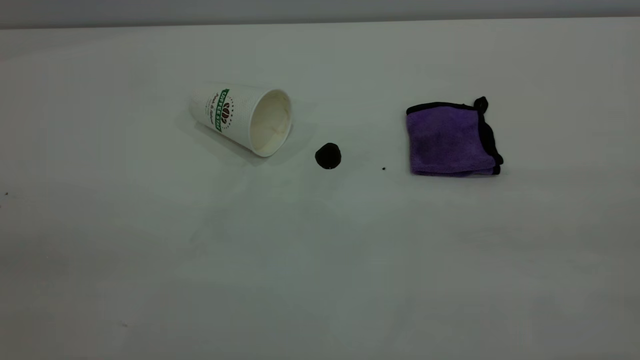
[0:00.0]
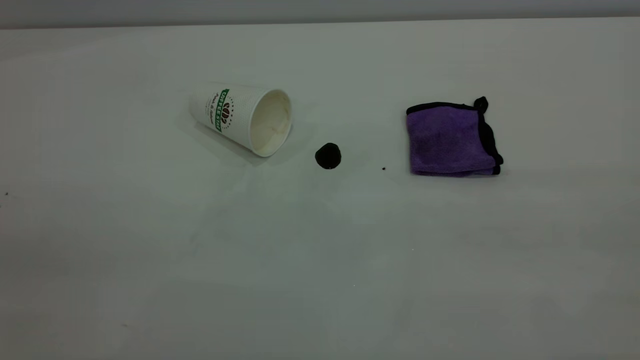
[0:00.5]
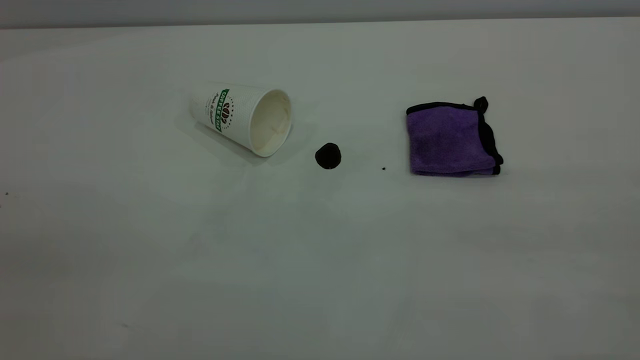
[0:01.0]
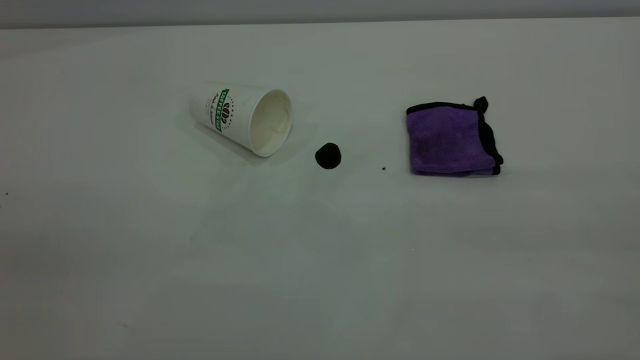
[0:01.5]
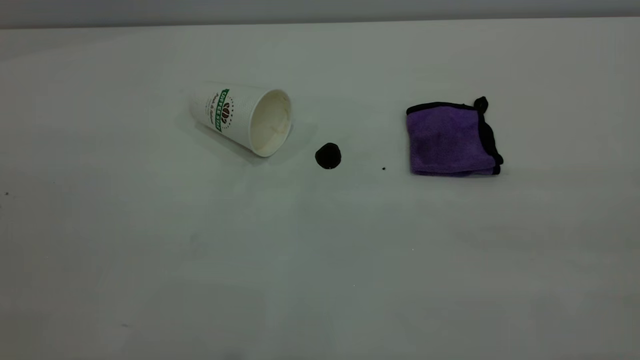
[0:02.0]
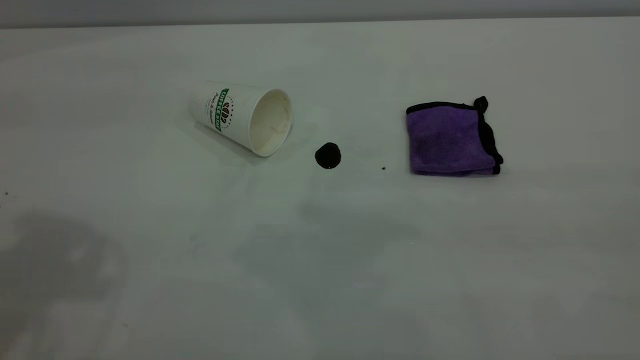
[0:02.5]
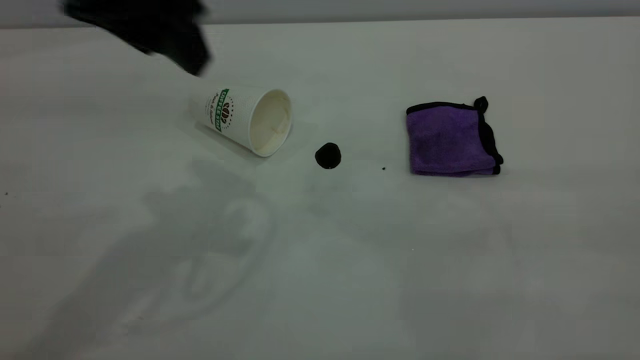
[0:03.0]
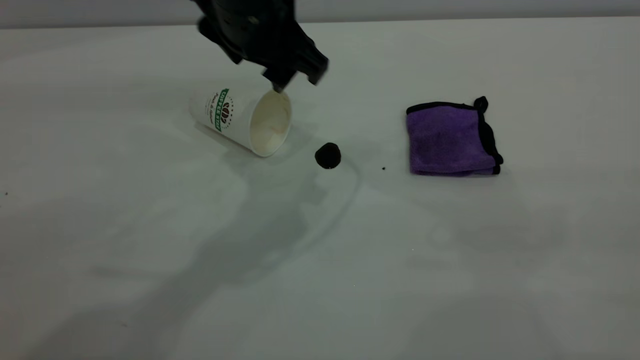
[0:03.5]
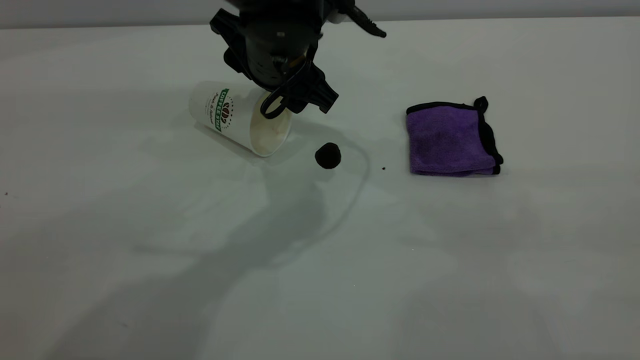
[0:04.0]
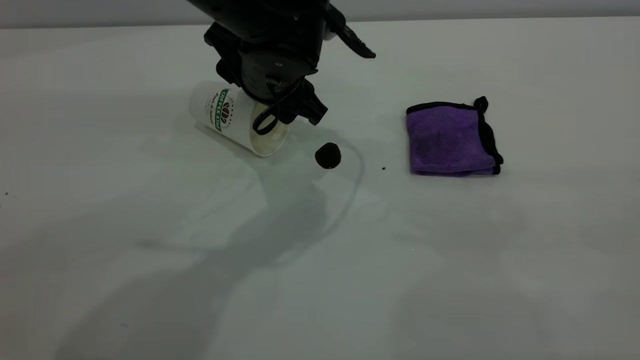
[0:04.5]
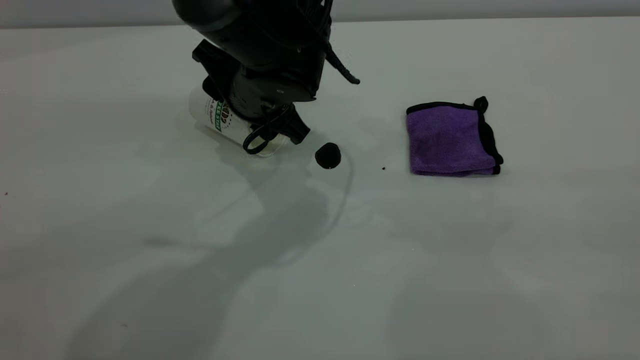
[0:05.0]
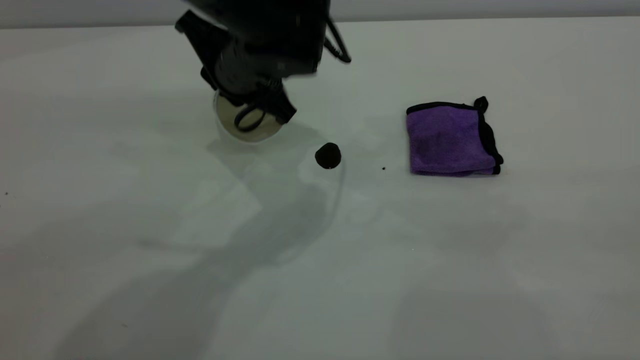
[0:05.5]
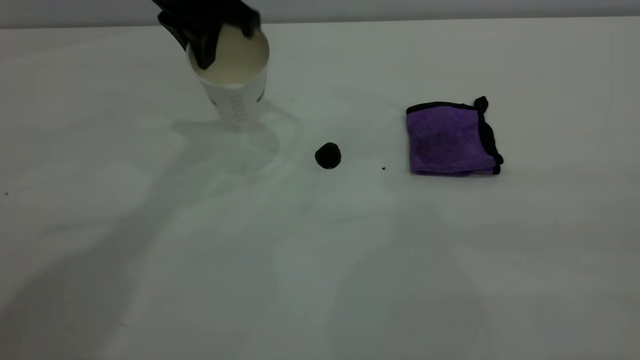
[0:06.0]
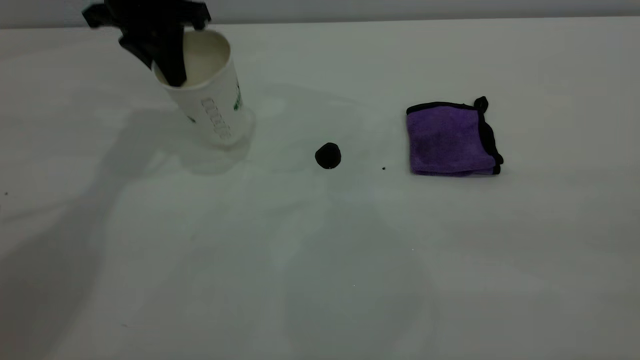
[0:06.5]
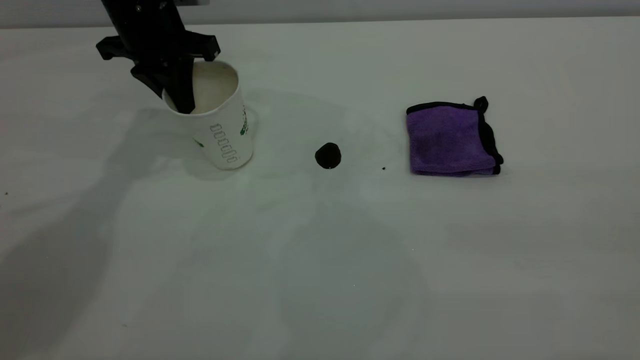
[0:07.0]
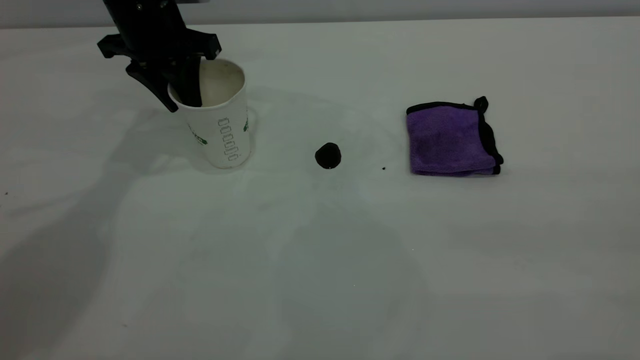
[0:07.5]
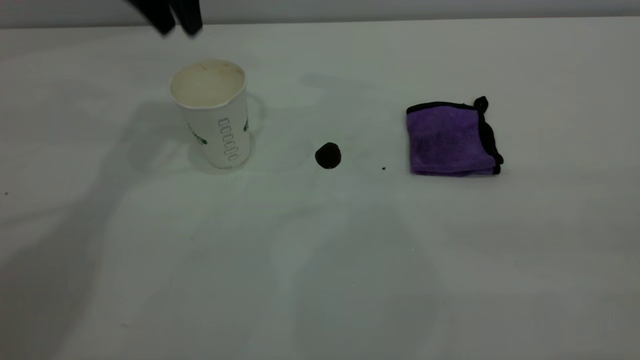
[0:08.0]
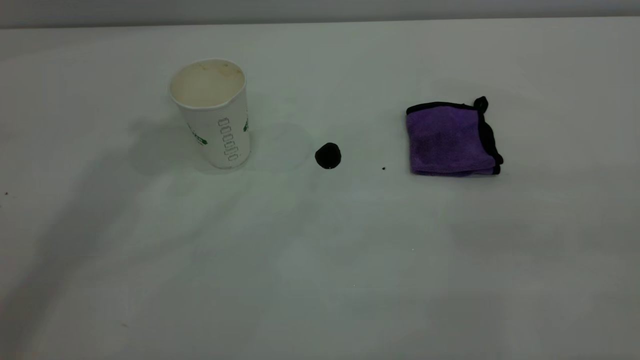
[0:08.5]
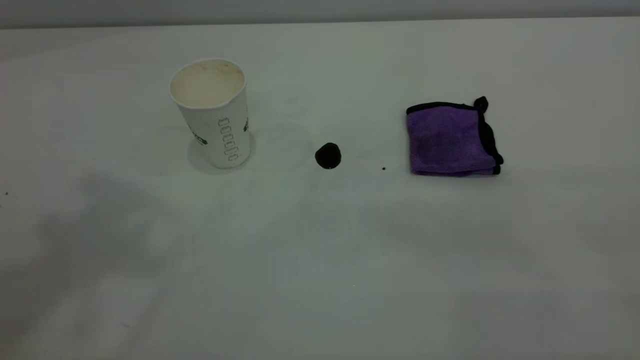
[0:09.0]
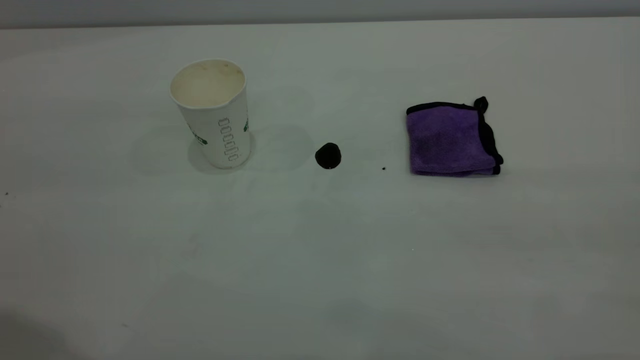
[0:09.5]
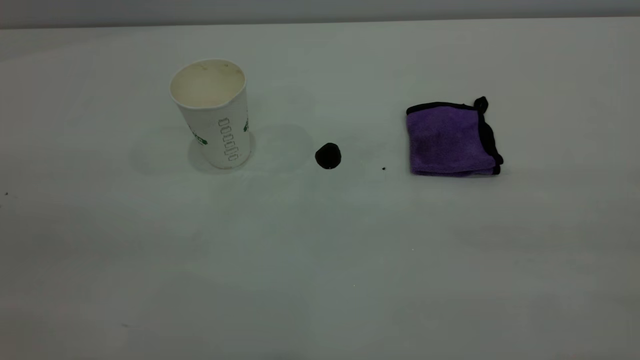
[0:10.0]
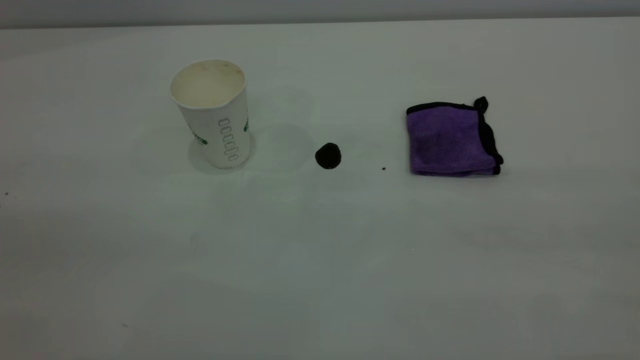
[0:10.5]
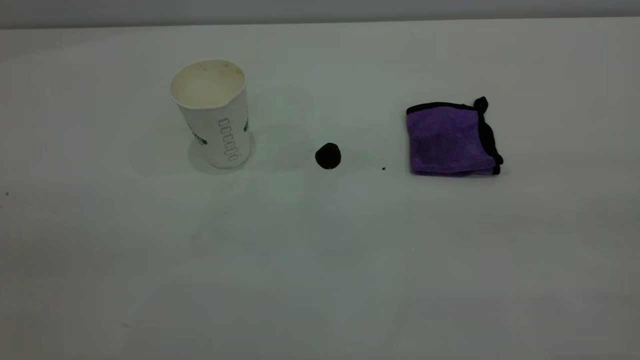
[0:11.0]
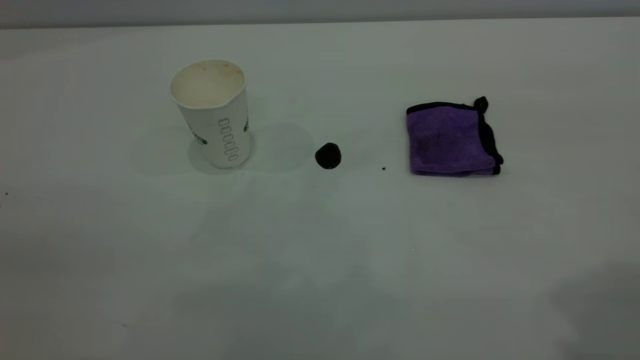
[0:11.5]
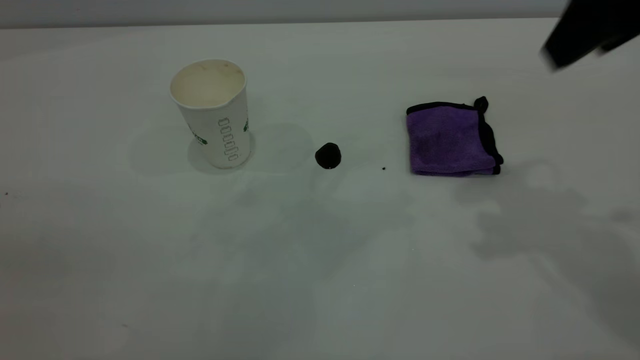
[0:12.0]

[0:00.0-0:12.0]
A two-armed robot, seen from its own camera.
Task of the whole recording: the left gripper pick up the fallen cup and place it upright, the right gripper grasp the purple rag and wipe the coffee stain on the table, the right gripper put the purple rag back in its original position.
Step, 0:00.0 to 0:07.5: Stand the paper cup upright.
0:02.0 to 0:04.0: The left gripper is displaced forward, to the right and downward by roughly 50 cm.
0:04.0 to 0:06.0: The left gripper heads to the left, upward and forward, covering some 15 cm, and closes up.
0:06.0 to 0:08.0: The left gripper goes roughly 5 cm upward, and opens its fingers.
0:08.0 to 0:10.0: The left gripper travels backward by approximately 40 cm.
0:10.0 to 0:12.0: The right gripper goes roughly 30 cm forward, and opens its fingers.

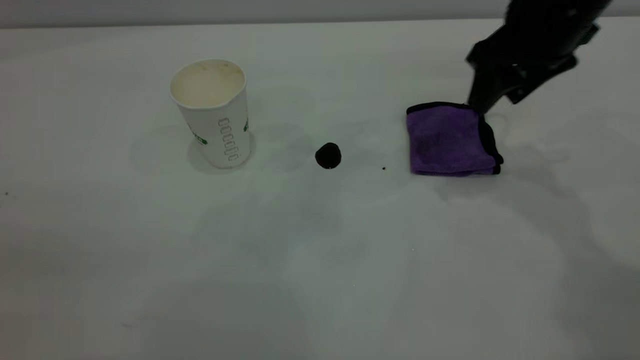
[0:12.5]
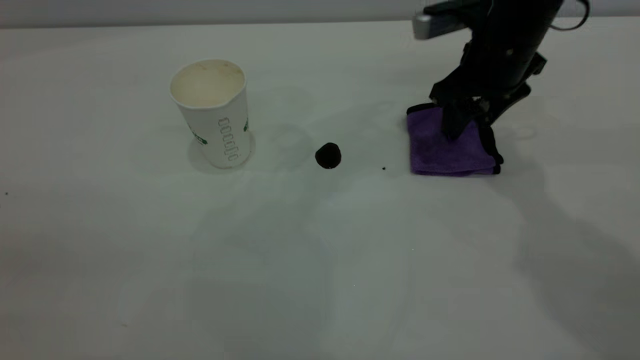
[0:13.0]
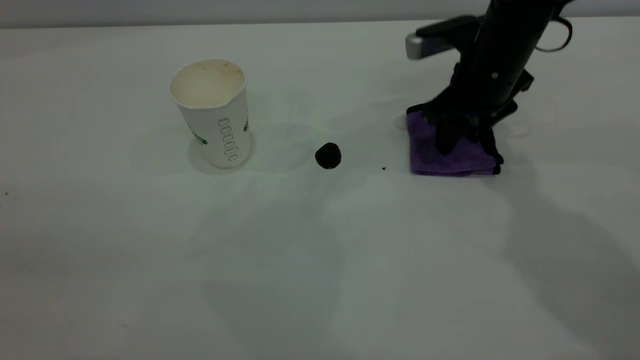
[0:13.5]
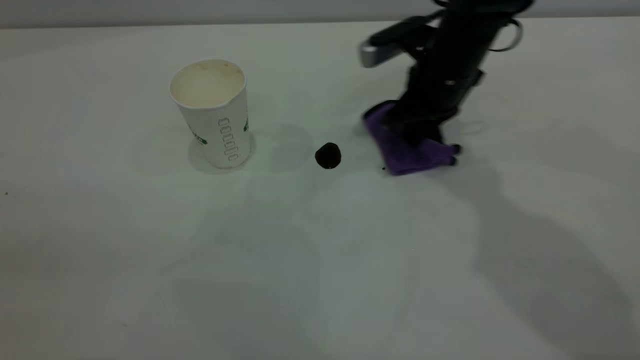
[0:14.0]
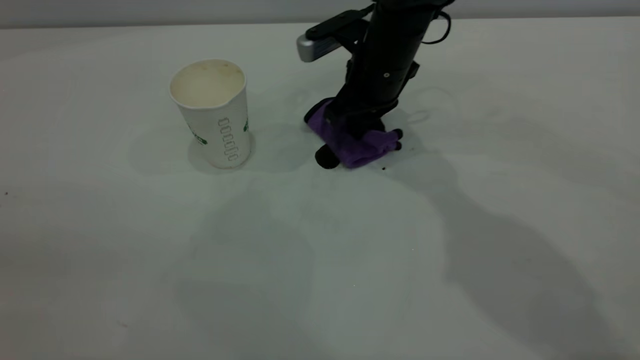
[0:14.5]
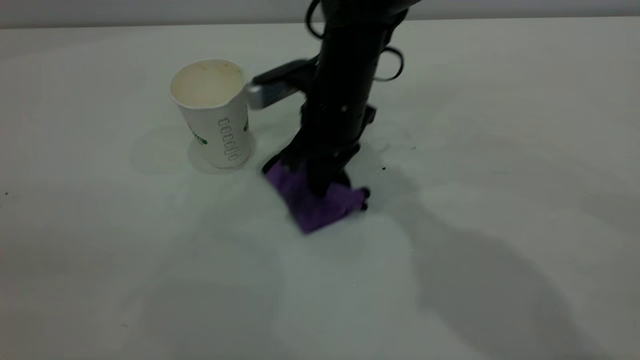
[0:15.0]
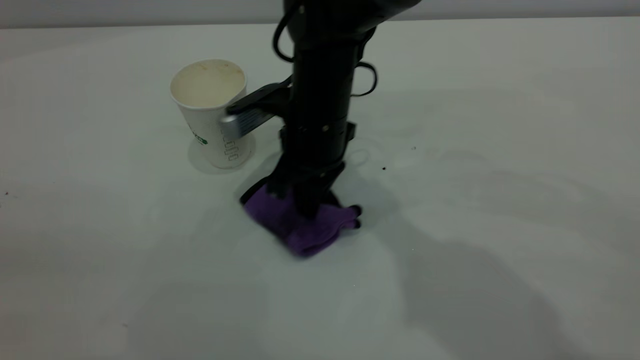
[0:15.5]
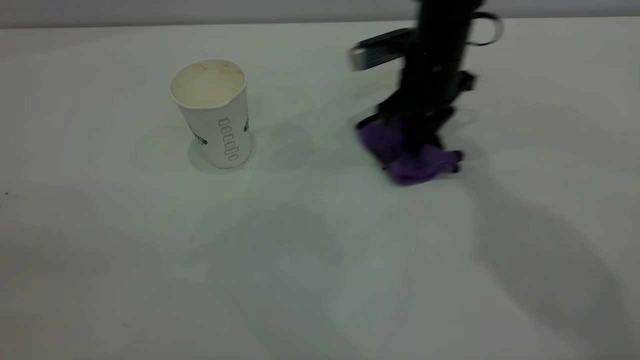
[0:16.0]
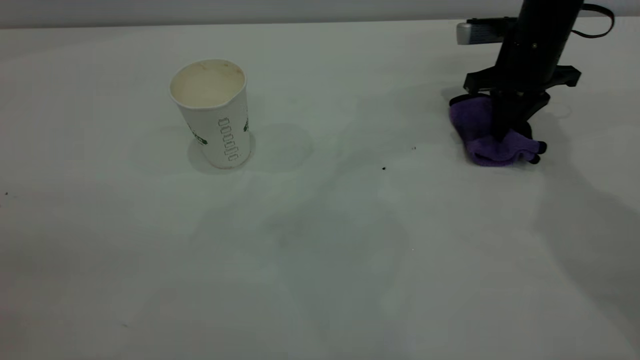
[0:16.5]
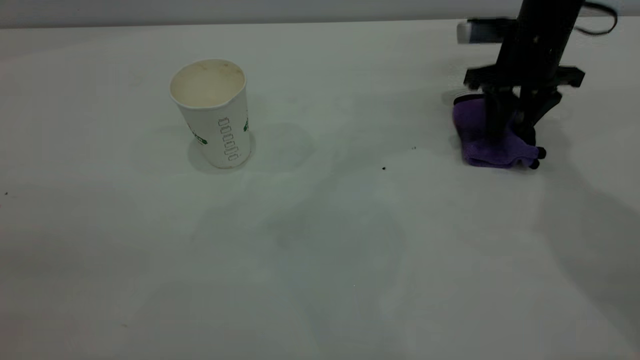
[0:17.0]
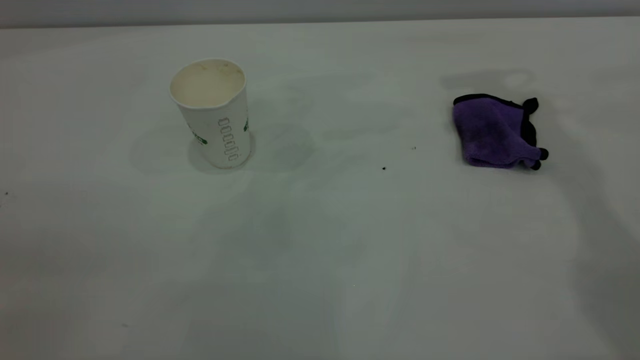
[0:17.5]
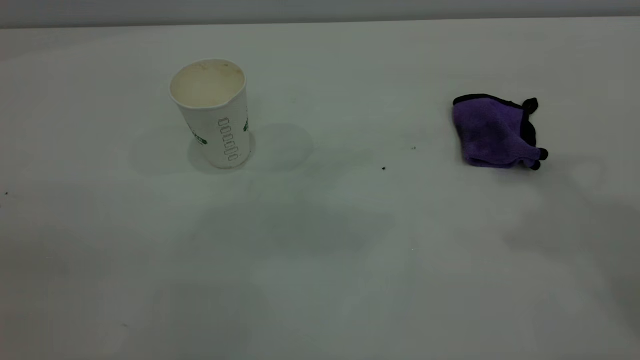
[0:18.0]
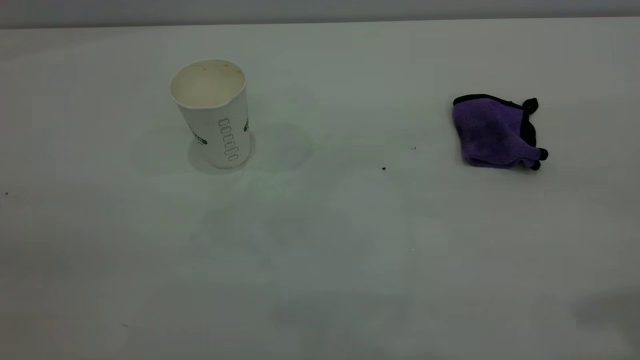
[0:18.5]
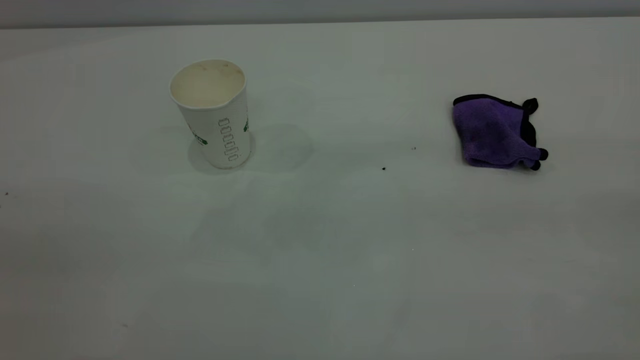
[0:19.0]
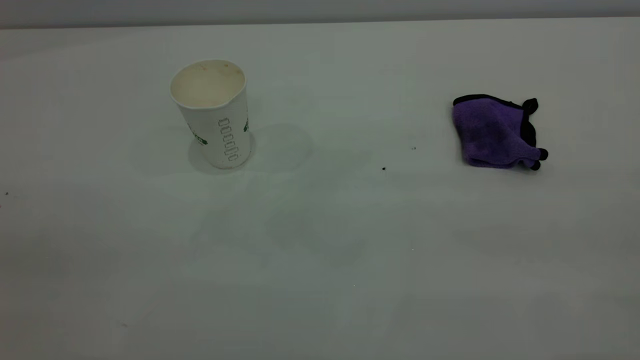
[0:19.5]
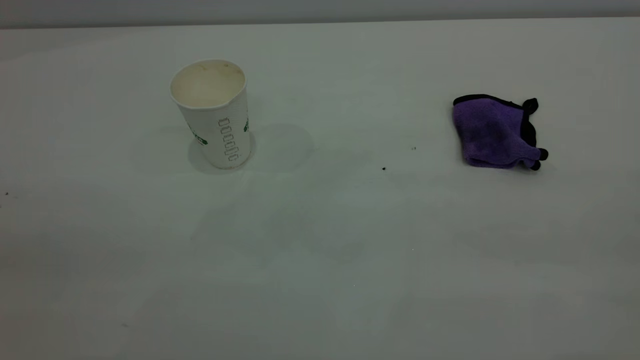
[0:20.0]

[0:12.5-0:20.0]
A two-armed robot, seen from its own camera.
Task of the whole recording: the left gripper pick up the fallen cup and place it upright, the right gripper grasp the purple rag and wipe the coffee stain on the table, the right gripper put the purple rag back in its original position.
Step, 0:12.5 to 0:17.0: Wipe the stains off the table with a rag.
0:12.5 to 0:14.5: The right gripper travels to the left and downward by about 15 cm, and closes its fingers.
0:14.5 to 0:16.5: The right gripper moves to the right, about 20 cm.
0:16.5 to 0:18.0: The right gripper is displaced upward and backward by about 35 cm, and opens up.
